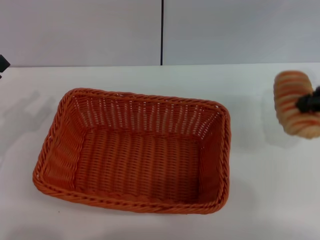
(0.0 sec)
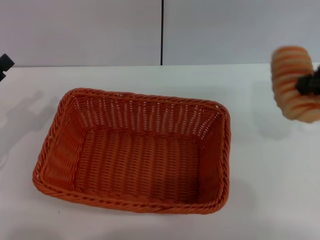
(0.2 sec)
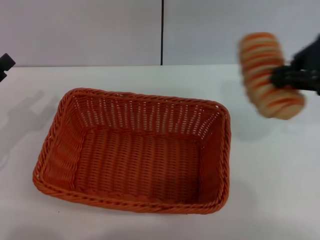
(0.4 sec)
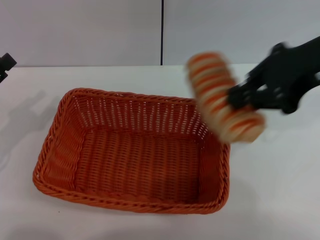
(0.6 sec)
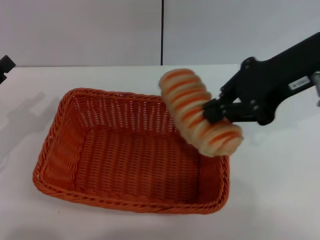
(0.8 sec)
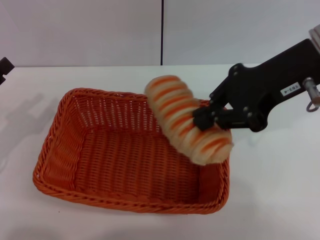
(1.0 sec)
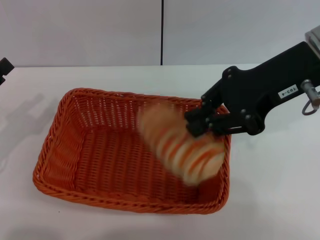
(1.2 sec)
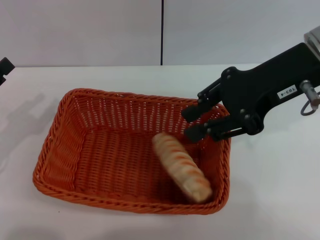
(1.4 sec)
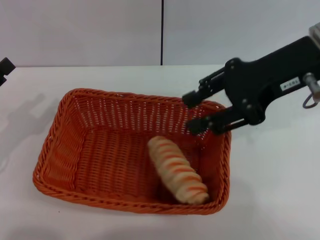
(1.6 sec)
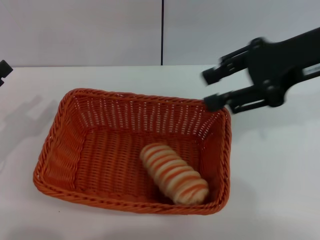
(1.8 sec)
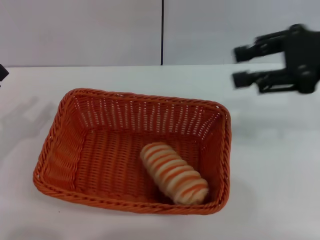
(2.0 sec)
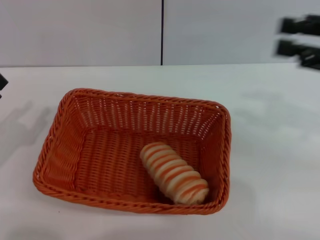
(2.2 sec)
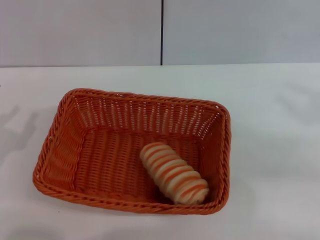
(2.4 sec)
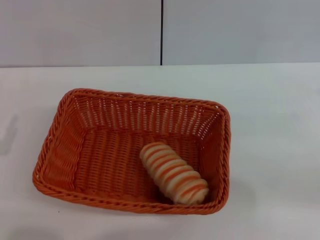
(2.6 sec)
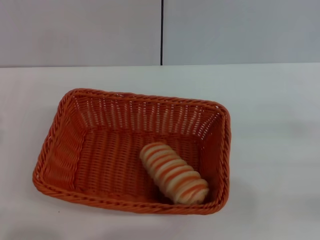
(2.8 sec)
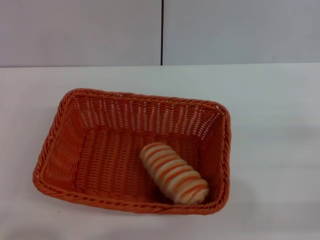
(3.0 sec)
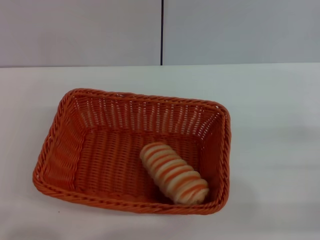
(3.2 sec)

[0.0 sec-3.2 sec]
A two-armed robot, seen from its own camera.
Step, 0.4 sec to 1.6 sec: Place the long bread into the light basket with the right gripper.
0.0 sec to 1.6 sec: The right gripper goes about 10 cm to the left, and opens.
1.6 sec to 3.2 sec: The right gripper is displaced downward, to the right and backward by roughly 30 cm. Meanwhile the left gripper moves backward, roughly 5 cm.
